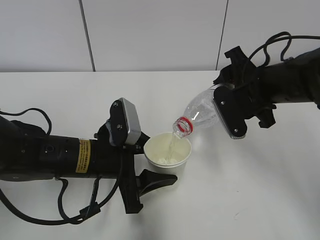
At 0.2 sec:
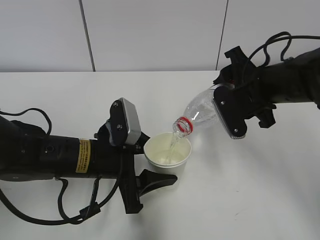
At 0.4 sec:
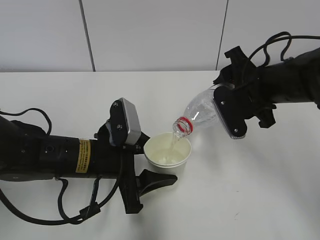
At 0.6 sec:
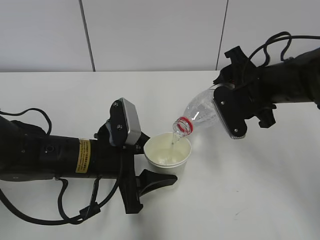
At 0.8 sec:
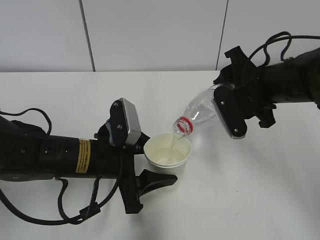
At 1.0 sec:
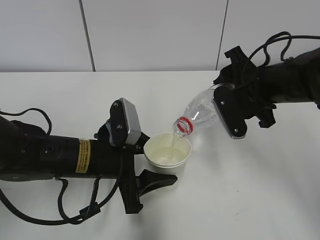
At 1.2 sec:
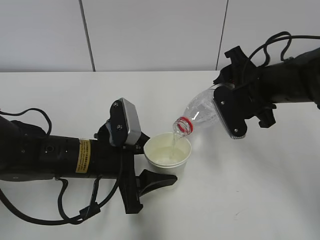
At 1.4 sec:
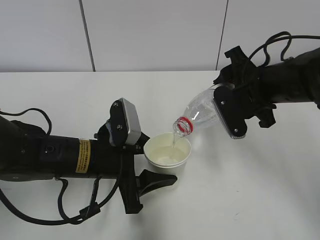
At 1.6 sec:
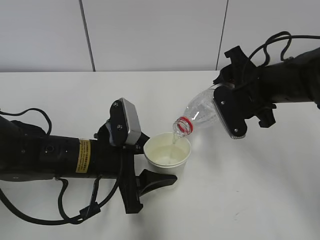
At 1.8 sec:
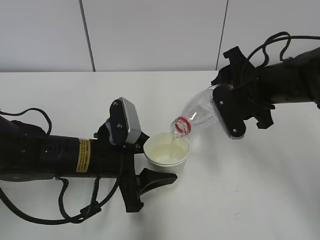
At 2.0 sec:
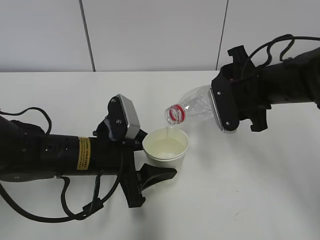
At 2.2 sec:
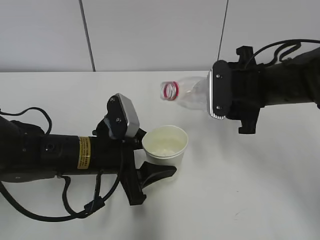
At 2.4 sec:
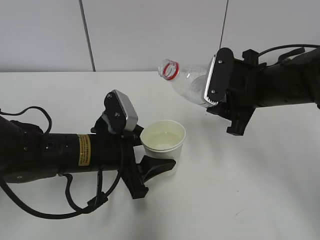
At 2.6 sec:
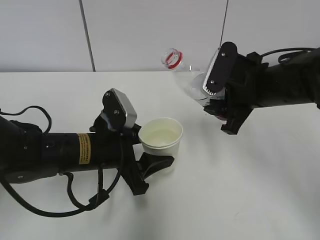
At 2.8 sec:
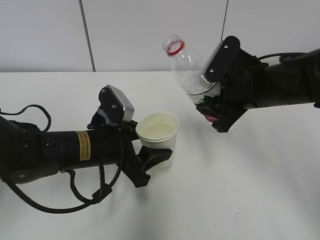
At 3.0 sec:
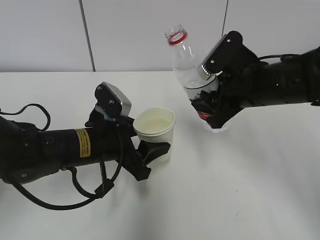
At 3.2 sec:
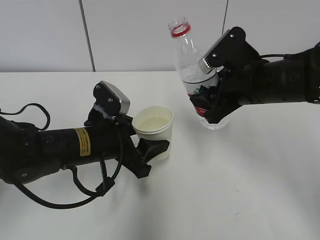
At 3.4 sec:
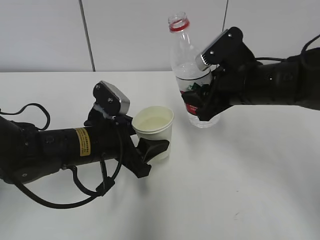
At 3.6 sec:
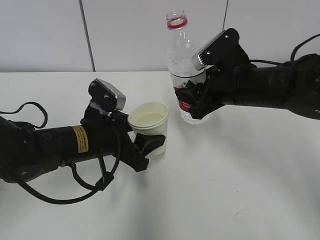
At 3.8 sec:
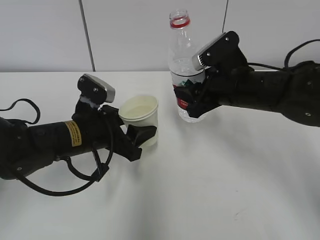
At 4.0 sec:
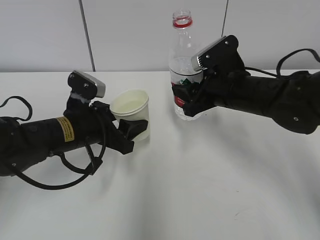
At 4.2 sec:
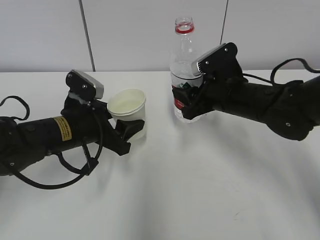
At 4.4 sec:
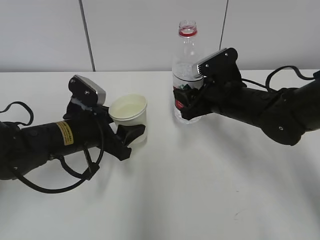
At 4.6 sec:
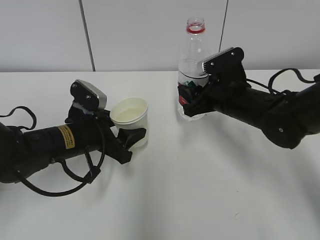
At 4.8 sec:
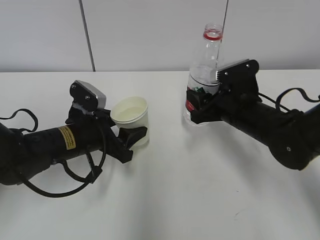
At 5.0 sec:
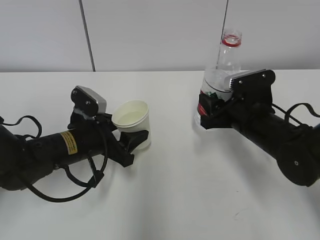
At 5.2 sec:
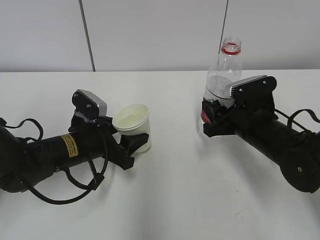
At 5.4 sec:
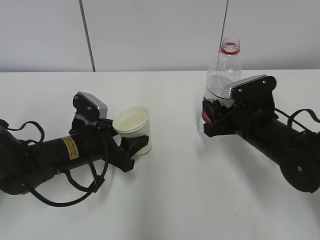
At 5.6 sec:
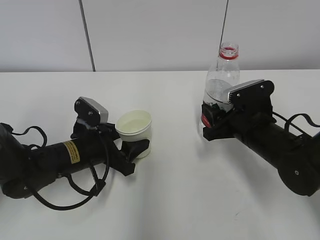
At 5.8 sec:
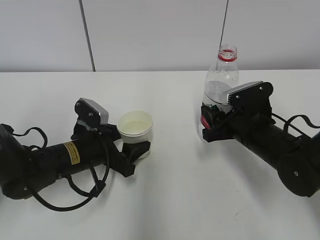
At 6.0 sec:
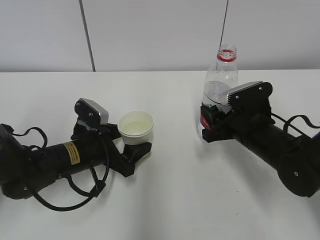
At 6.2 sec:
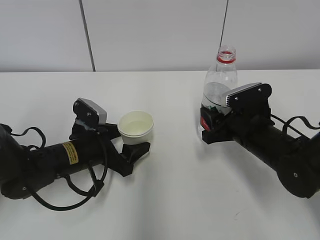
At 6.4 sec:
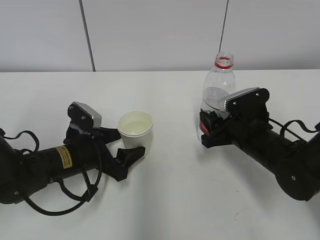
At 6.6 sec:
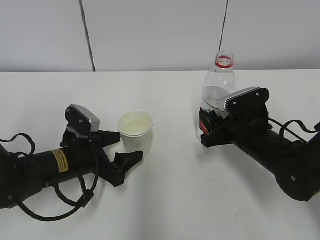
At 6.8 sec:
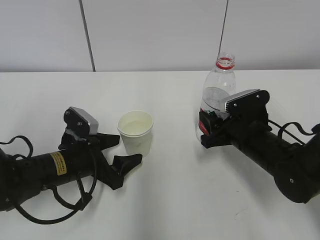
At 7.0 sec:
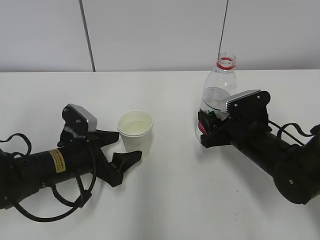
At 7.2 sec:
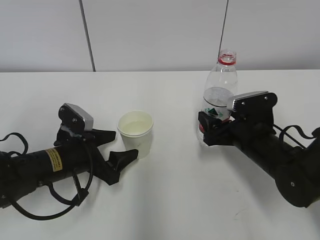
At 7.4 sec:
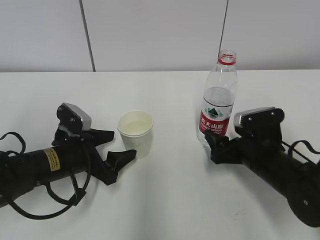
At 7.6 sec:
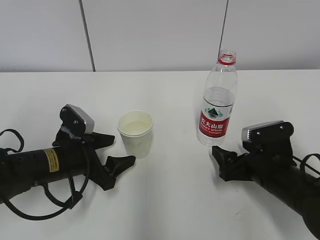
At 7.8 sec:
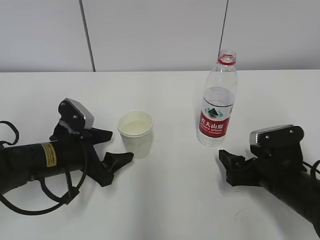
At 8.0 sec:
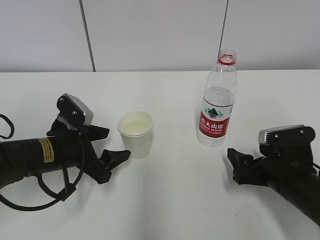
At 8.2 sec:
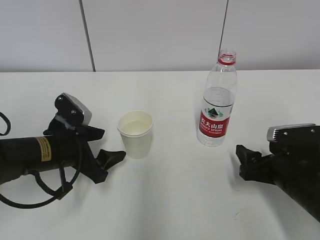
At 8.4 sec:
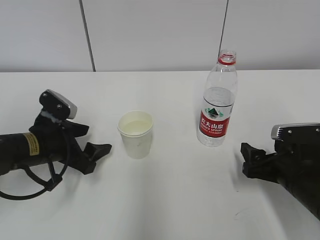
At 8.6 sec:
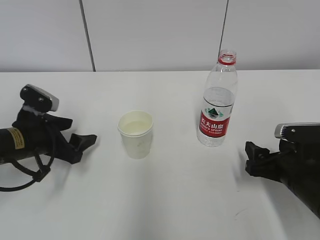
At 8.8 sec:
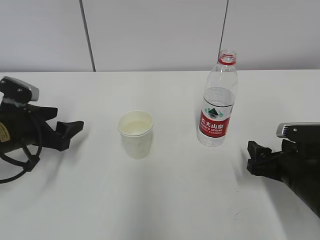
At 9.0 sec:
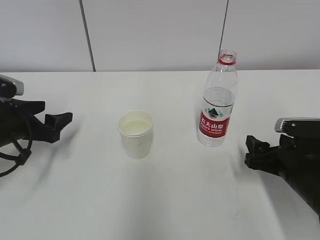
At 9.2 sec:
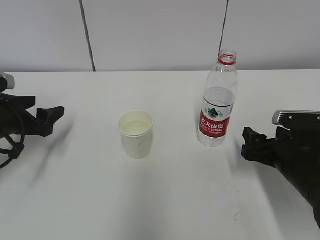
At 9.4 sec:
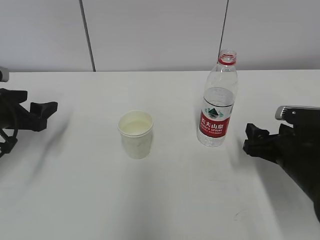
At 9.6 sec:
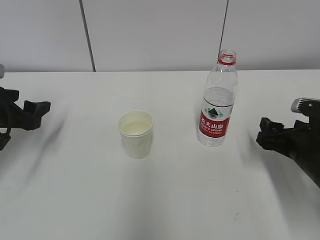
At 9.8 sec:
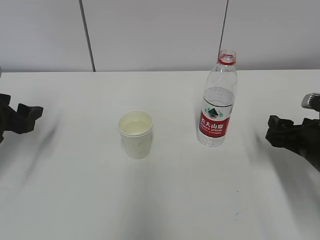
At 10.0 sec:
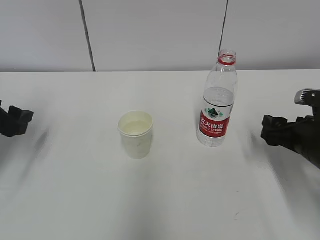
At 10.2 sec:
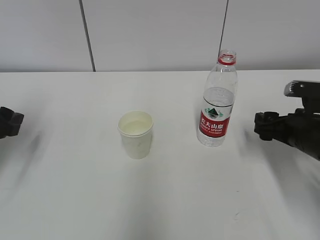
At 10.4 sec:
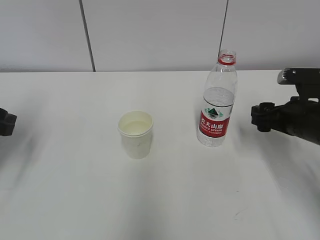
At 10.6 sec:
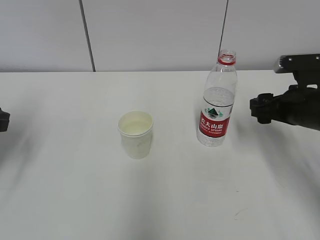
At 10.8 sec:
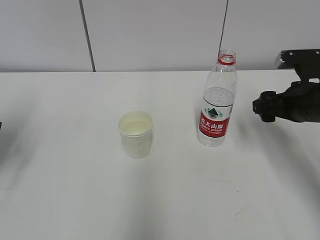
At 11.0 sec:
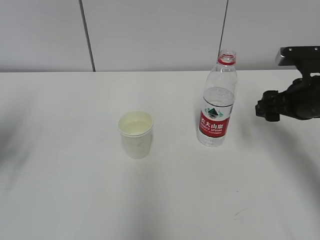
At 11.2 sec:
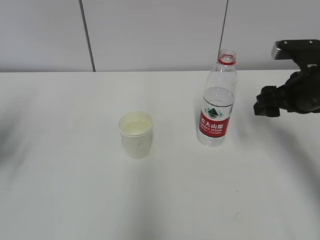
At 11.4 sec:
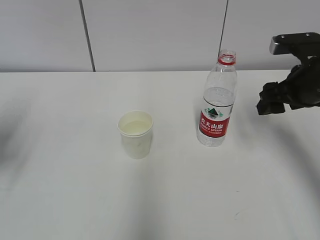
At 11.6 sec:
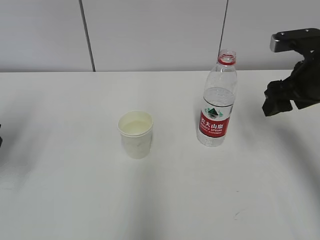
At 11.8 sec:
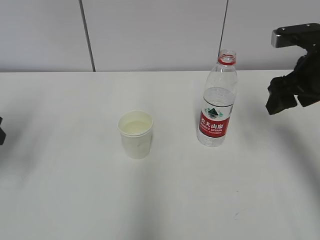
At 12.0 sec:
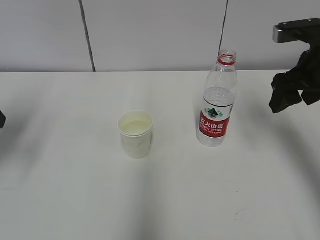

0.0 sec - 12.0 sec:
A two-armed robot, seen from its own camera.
Step, 1.2 sec - 1.8 sec: Place the water bottle with the right hand.
0.0 sec - 1.6 sec: Neither gripper changes place.
3.0 sec - 4.4 sec: The left gripper shifts by roughly 5 cm, while the right gripper heads downward, covering approximately 5 cm.
4.4 sec - 6.0 sec: The left gripper opens its fingers; the right gripper ends up approximately 5 cm from where it was.
6.0 sec - 7.6 sec: The right gripper travels backward by about 5 cm, and opens up.
7.6 sec - 9.0 sec: The left gripper moves to the left, approximately 10 cm.
9.0 sec - 10.4 sec: The left gripper goes about 5 cm upward, and closes up. The right gripper goes some 10 cm upward and forward.
10.4 sec - 12.0 sec: The right gripper is displaced upward by roughly 10 cm.

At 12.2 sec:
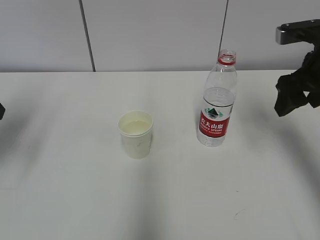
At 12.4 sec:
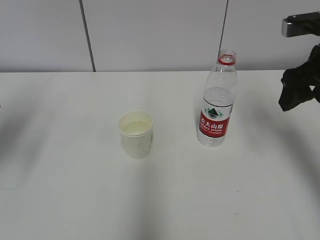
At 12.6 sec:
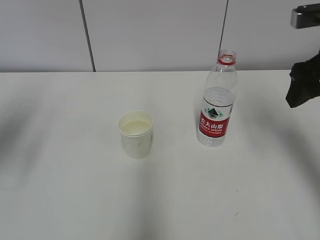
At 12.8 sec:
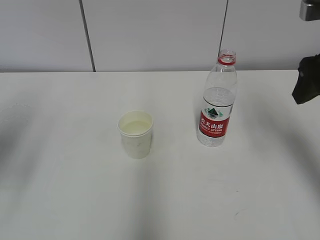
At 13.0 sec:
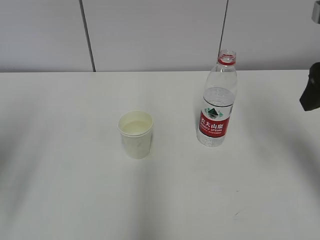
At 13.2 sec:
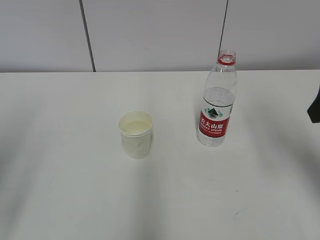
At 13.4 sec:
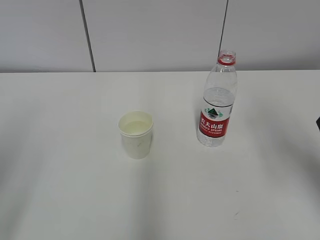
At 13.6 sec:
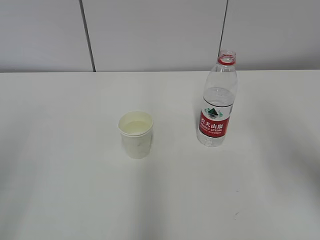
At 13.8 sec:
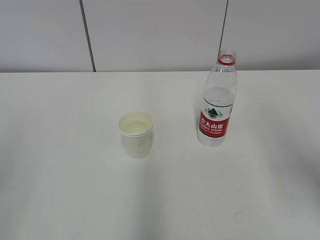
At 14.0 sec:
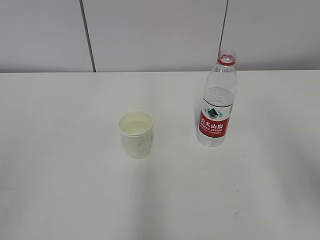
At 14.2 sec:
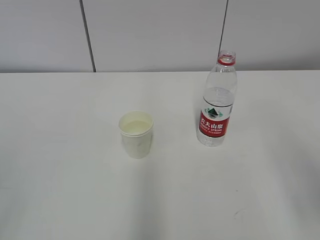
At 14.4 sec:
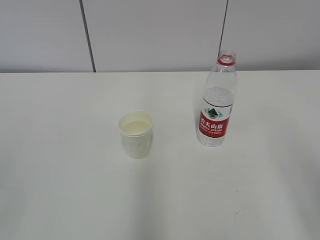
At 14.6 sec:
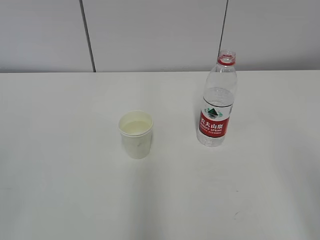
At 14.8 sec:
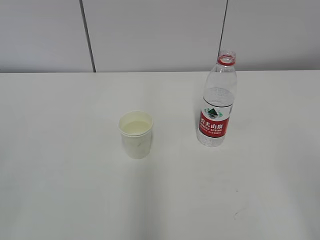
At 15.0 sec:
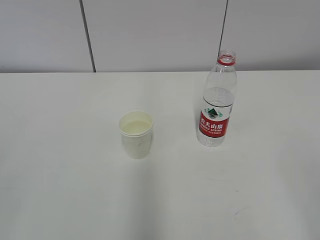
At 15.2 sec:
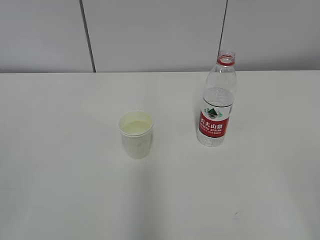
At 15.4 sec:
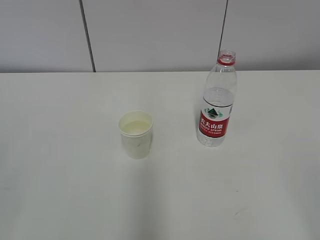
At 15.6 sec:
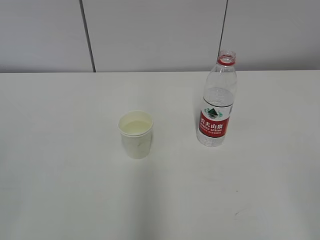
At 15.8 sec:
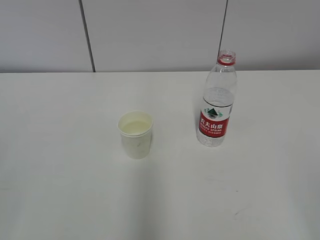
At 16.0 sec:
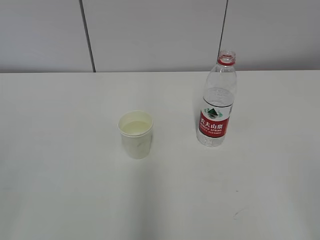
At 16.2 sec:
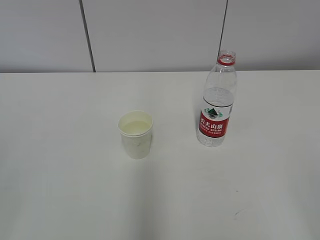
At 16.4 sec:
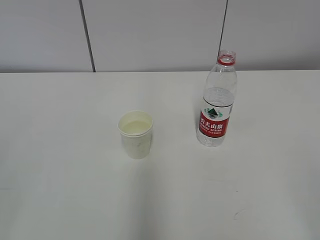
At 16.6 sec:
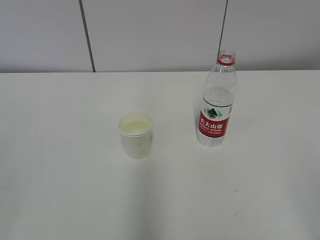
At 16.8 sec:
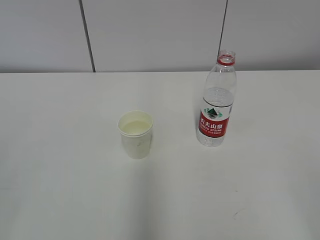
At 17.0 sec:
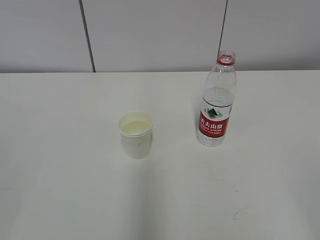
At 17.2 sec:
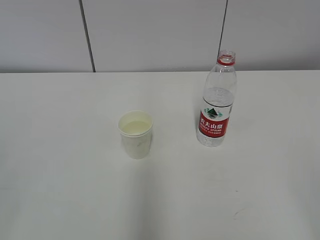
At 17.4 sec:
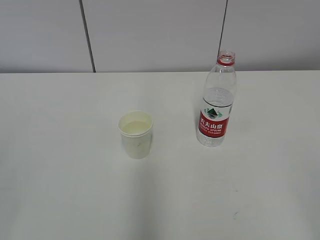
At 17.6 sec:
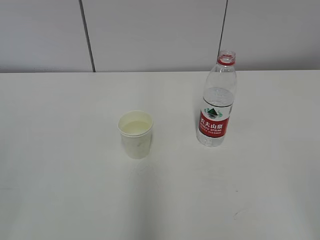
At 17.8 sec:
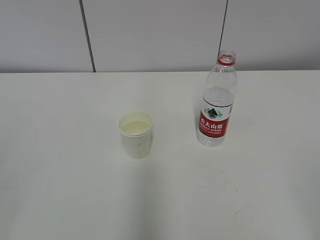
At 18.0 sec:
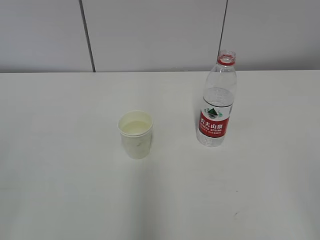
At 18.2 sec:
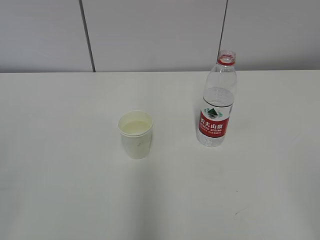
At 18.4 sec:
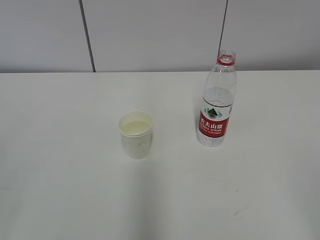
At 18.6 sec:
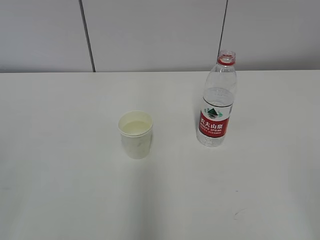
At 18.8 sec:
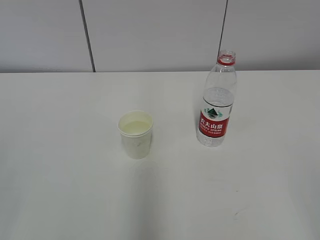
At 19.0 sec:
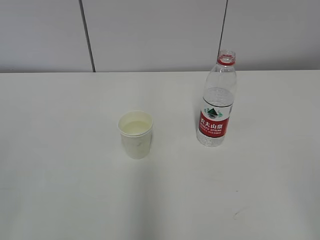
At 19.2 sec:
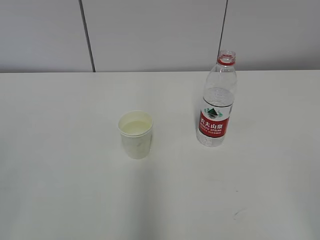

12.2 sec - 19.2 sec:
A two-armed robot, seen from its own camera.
12.2 sec - 13.6 sec: The two grippers go some 15 cm backward.
13.6 sec - 15.0 sec: The right gripper travels backward by roughly 20 cm.
16.4 sec - 19.2 sec: The two grippers keep their place.
